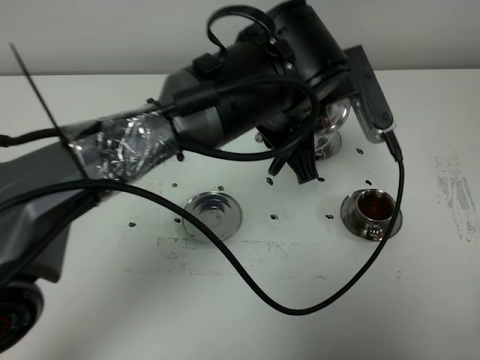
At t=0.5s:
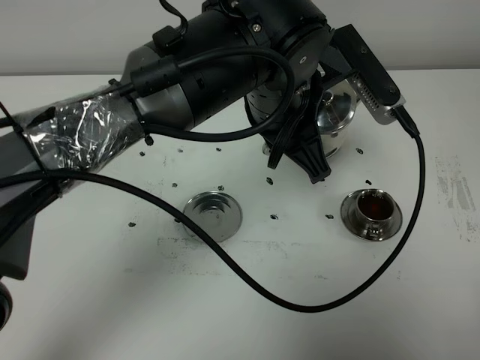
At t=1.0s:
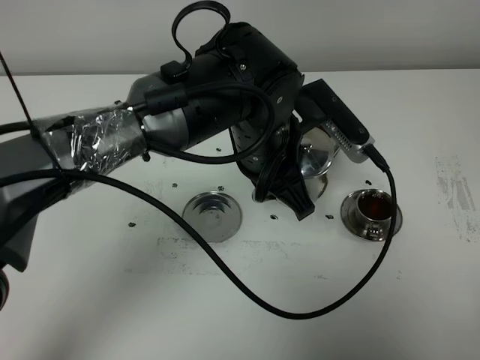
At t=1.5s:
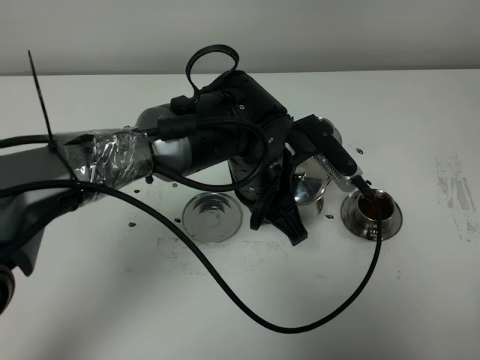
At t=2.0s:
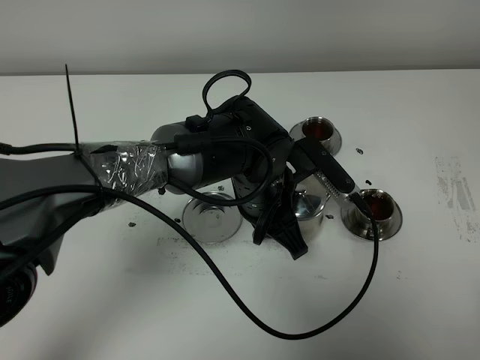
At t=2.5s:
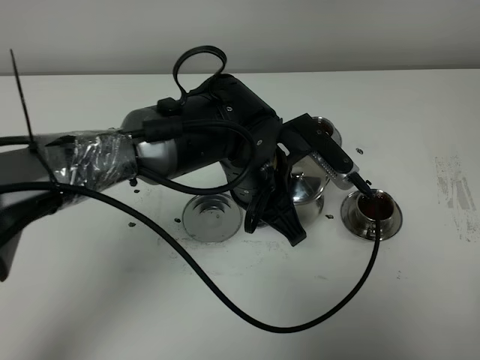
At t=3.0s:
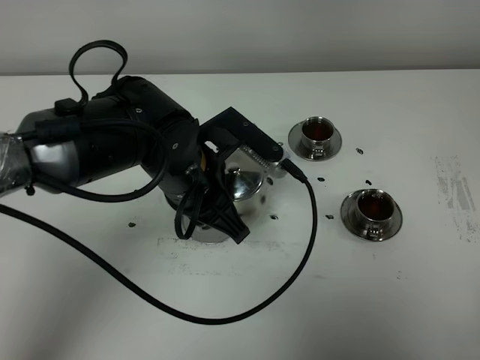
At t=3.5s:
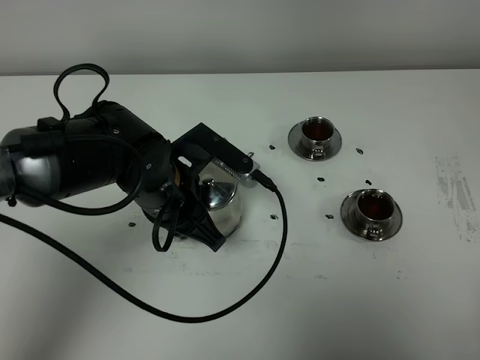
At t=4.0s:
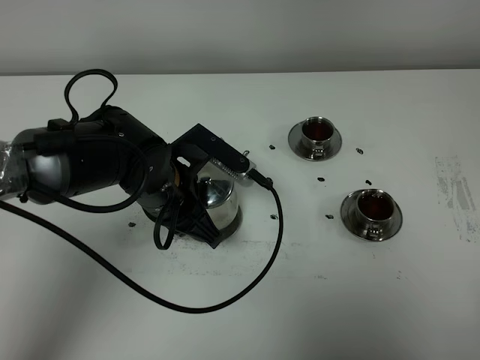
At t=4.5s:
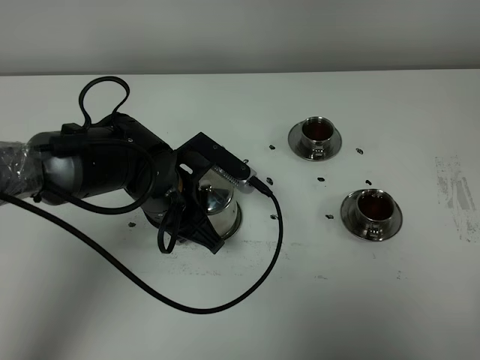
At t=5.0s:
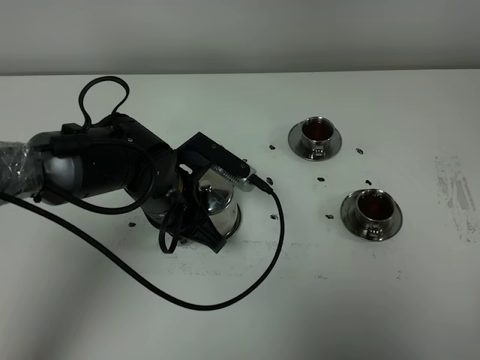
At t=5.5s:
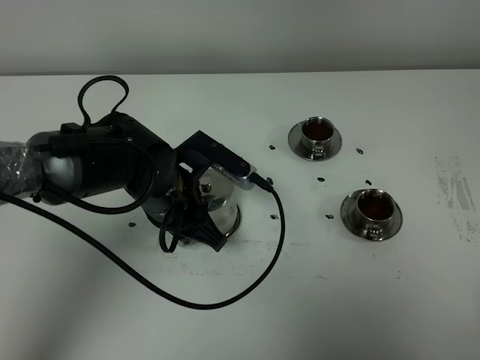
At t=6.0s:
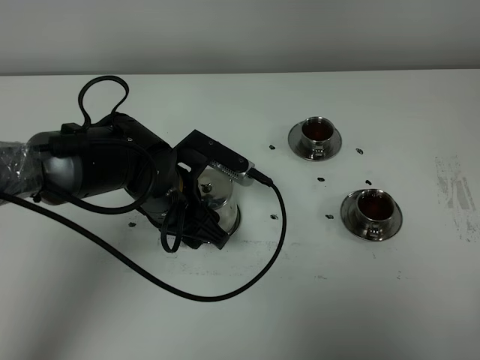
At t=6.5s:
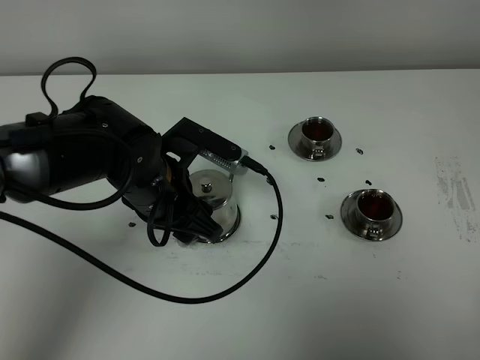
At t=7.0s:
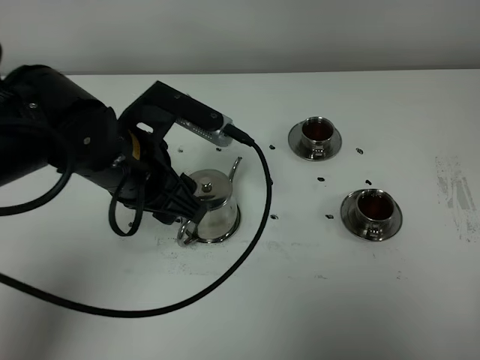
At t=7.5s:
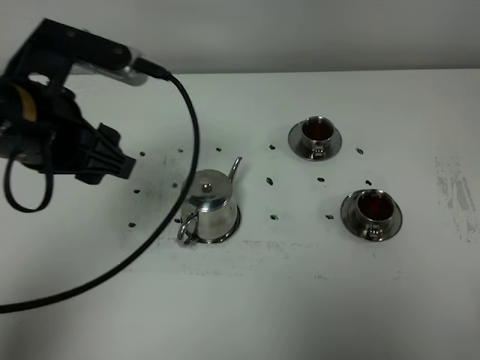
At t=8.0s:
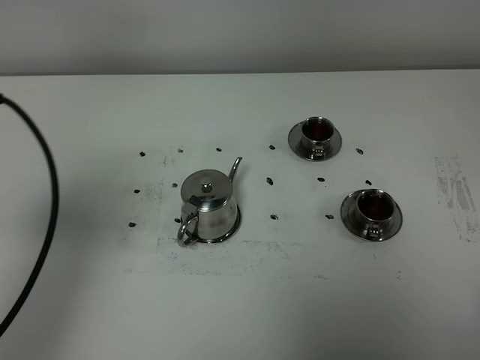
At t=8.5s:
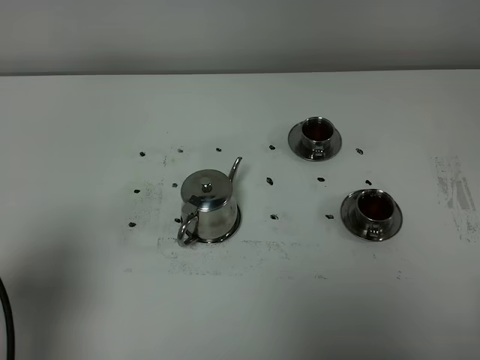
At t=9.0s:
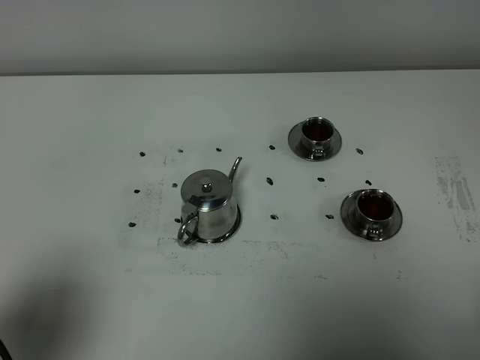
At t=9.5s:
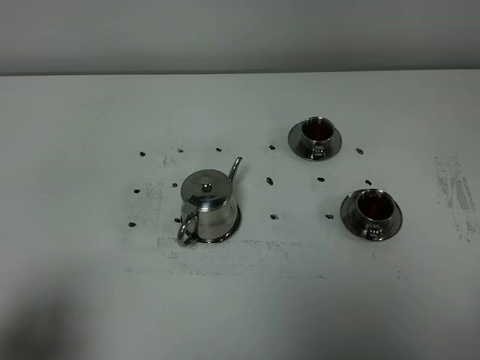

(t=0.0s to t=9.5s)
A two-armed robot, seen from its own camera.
Task of the whole recording: grasp the stainless steel teapot and pour the tea into the two stainless steel teacups one by one, put the stainless steel teapot back in its original place.
t=0.0s - t=2.0s: The left gripper shifts some 10 cm downward.
t=2.0s - t=4.0s: The left gripper heads to the left, covering some 10 cm.
t=4.0s - t=5.5s: Both grippers stay about where they are.
t=5.5s - t=7.5s: The left gripper travels upward and to the left by some 20 cm, and opens its fingers.
t=7.5s - t=9.5s: The left gripper heads backward and to the left, covering about 25 cm.

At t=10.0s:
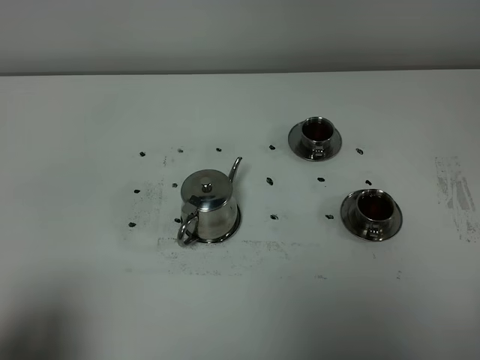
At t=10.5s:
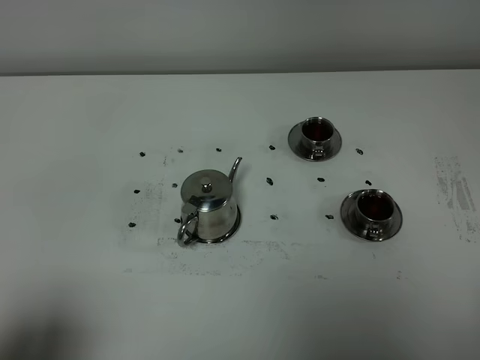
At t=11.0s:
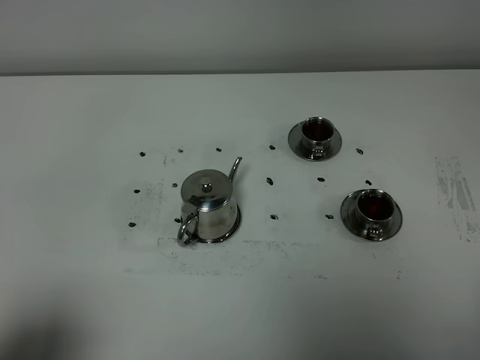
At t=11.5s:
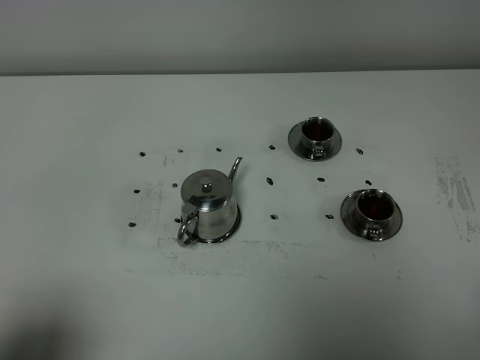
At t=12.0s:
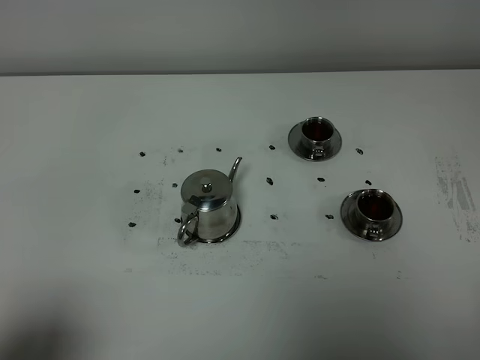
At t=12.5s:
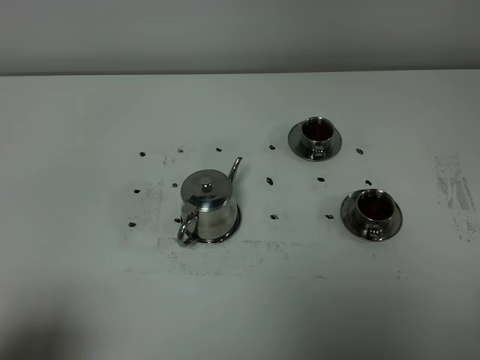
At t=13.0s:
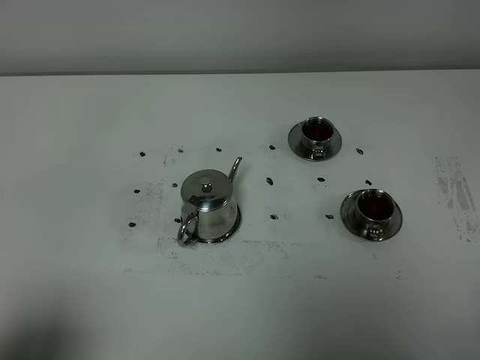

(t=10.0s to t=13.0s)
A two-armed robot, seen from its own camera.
Task of the whole recording: grasp the stainless steel teapot and pour the tea into the two stainless steel teacups one by one, put the stainless steel teapot back in its original place.
t=11.5s - t=13.0s: The two grippers keep their place.
